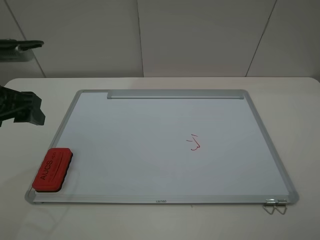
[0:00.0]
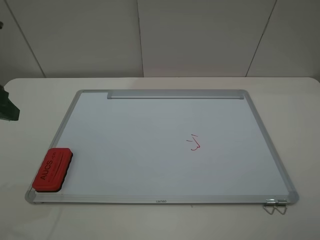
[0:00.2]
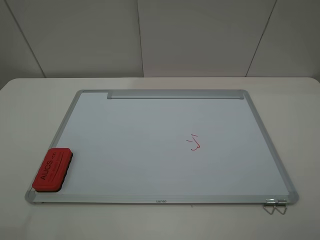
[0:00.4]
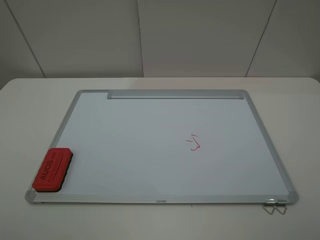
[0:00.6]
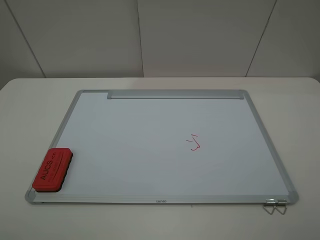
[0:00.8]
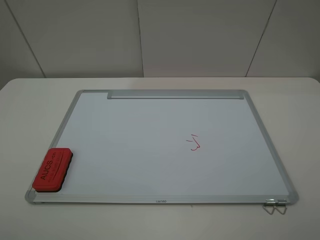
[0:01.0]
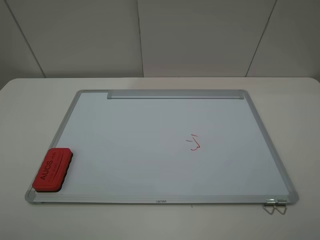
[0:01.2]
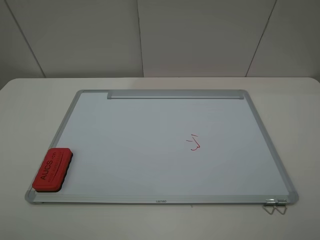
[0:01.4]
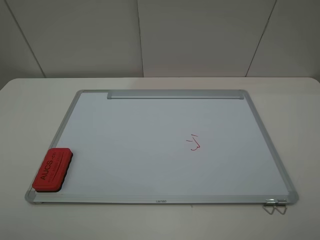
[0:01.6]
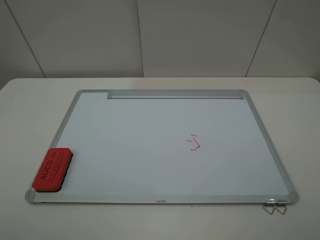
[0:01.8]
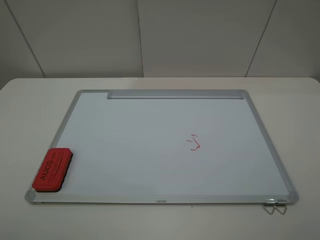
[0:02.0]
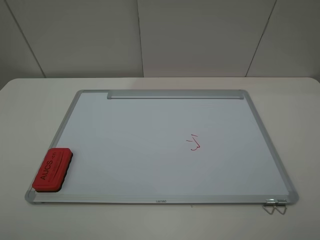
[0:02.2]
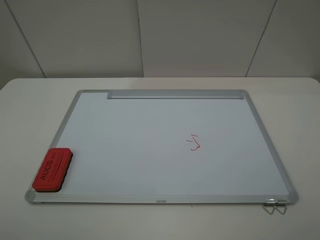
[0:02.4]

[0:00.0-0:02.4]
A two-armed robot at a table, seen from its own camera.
0:00.0 to 0:01.2: The left gripper is displaced backward by approximately 20 cm.
